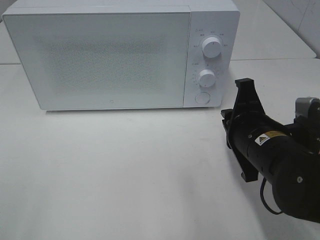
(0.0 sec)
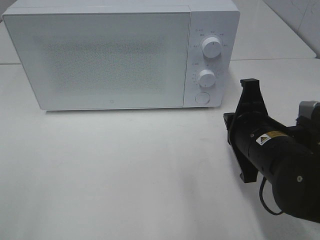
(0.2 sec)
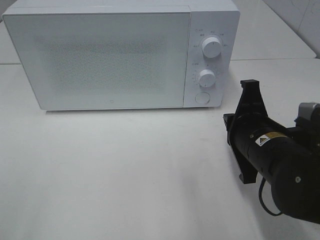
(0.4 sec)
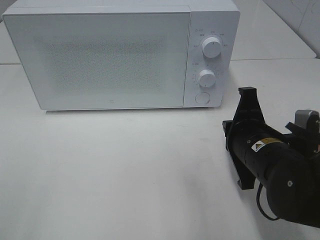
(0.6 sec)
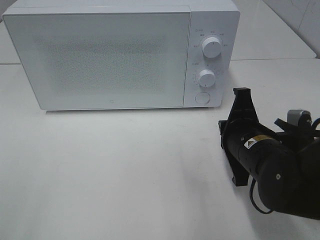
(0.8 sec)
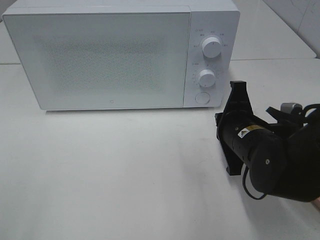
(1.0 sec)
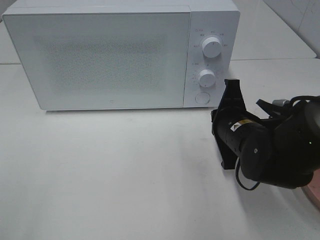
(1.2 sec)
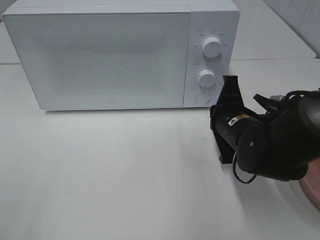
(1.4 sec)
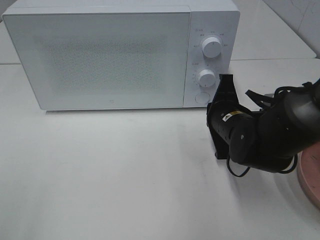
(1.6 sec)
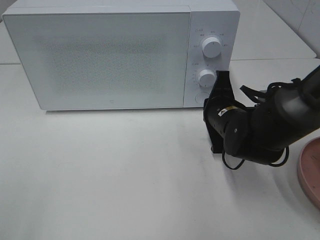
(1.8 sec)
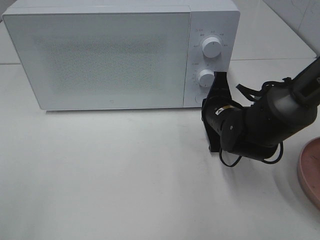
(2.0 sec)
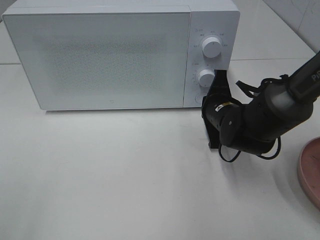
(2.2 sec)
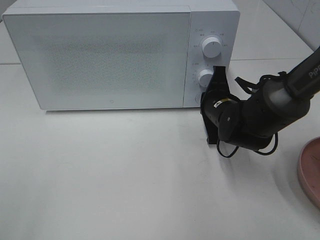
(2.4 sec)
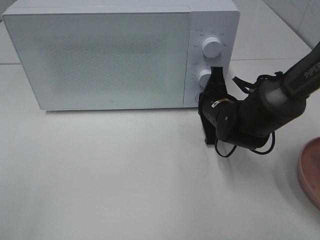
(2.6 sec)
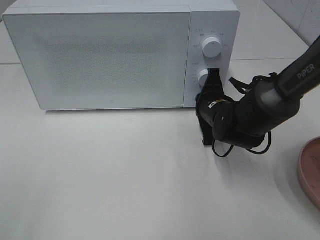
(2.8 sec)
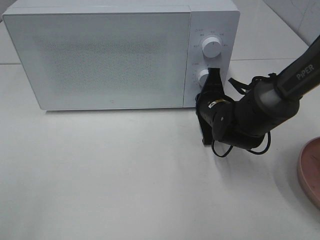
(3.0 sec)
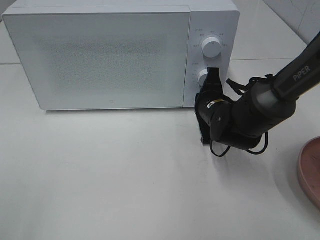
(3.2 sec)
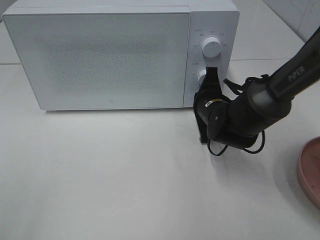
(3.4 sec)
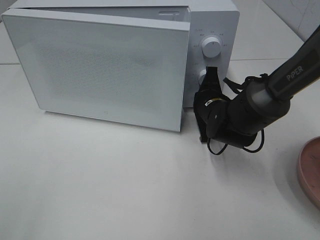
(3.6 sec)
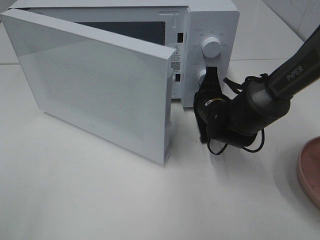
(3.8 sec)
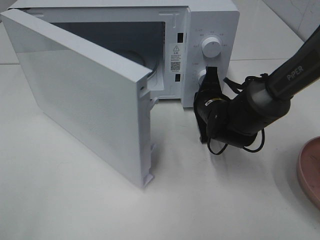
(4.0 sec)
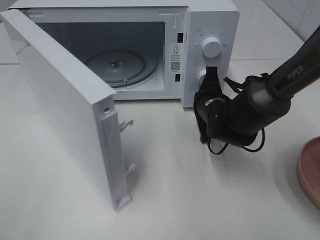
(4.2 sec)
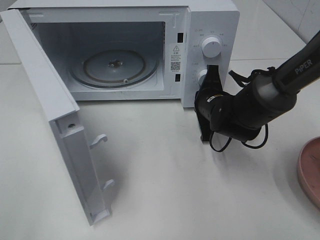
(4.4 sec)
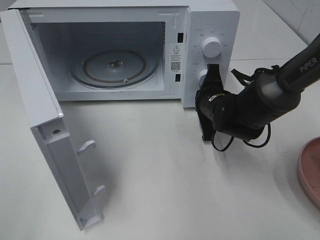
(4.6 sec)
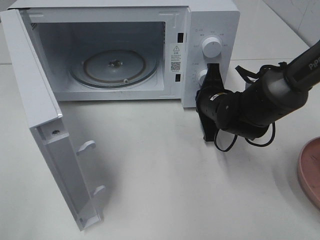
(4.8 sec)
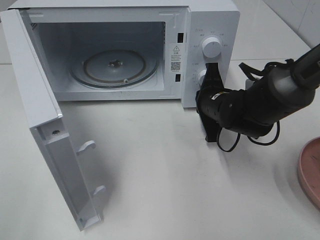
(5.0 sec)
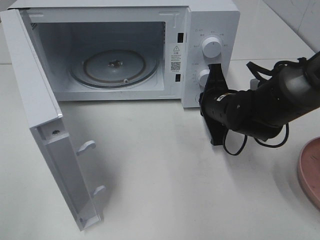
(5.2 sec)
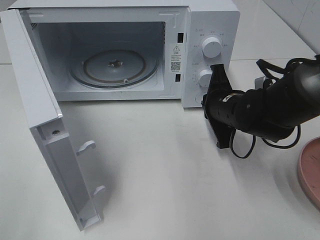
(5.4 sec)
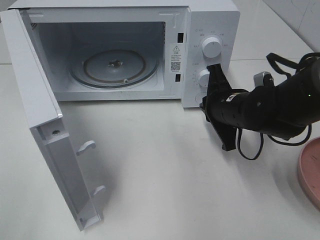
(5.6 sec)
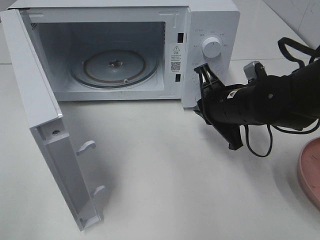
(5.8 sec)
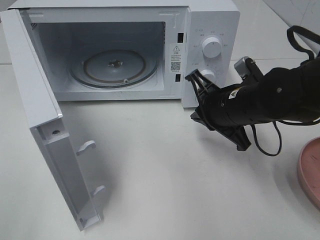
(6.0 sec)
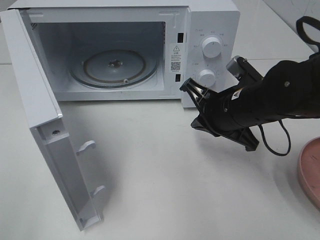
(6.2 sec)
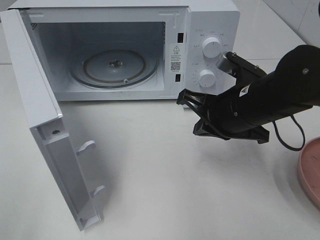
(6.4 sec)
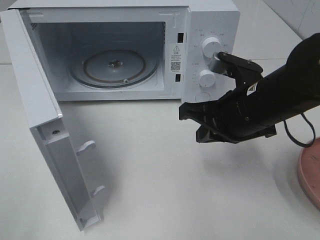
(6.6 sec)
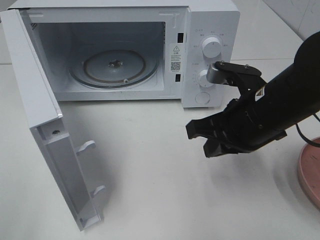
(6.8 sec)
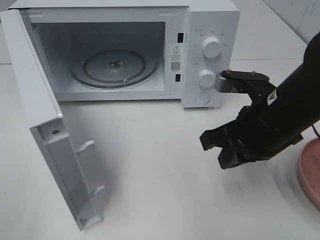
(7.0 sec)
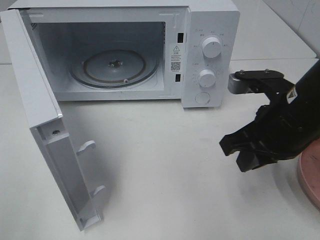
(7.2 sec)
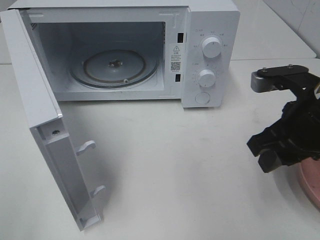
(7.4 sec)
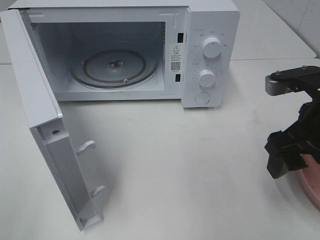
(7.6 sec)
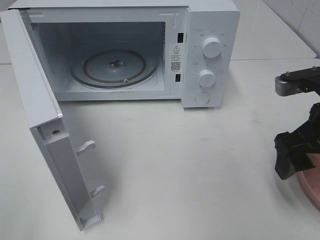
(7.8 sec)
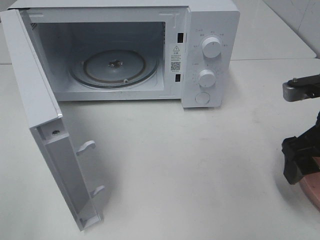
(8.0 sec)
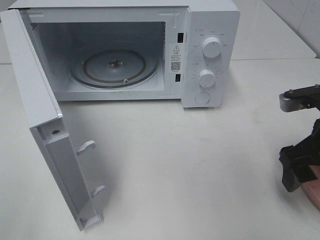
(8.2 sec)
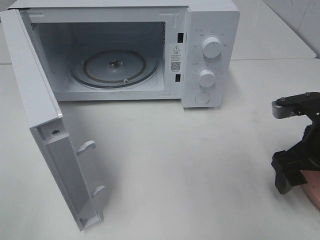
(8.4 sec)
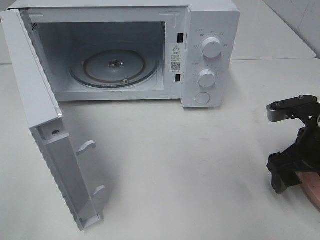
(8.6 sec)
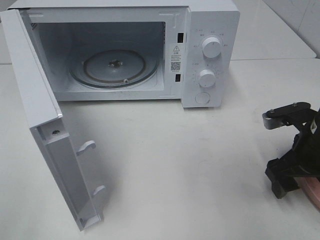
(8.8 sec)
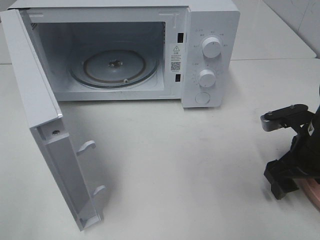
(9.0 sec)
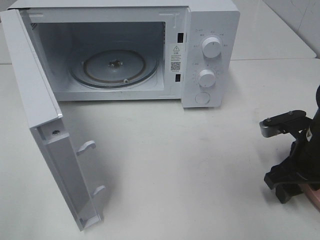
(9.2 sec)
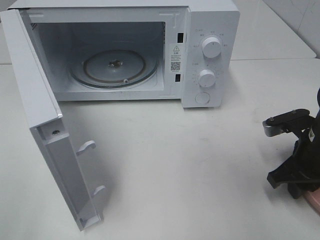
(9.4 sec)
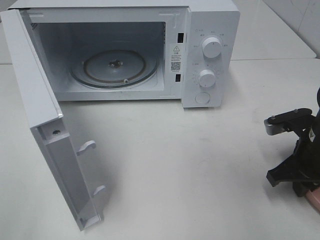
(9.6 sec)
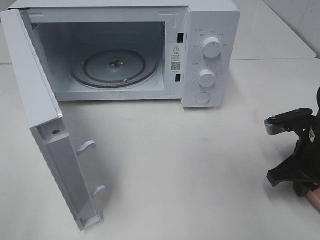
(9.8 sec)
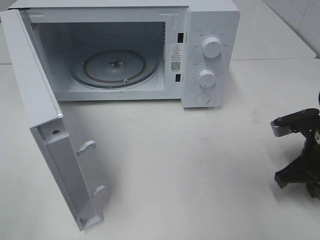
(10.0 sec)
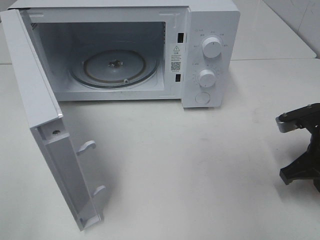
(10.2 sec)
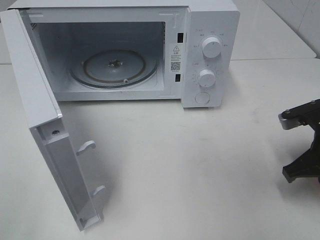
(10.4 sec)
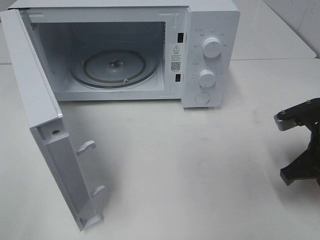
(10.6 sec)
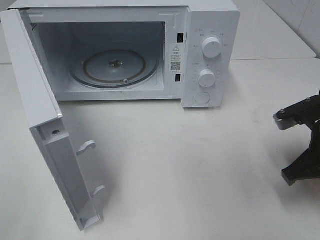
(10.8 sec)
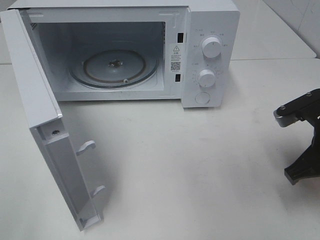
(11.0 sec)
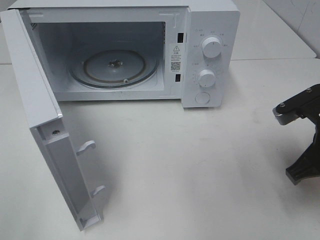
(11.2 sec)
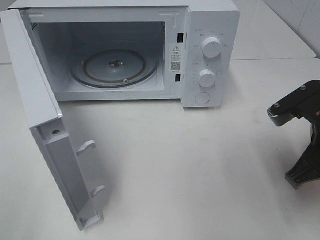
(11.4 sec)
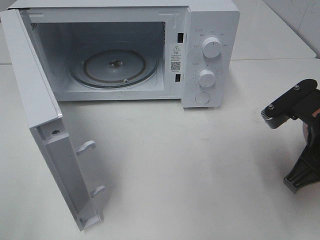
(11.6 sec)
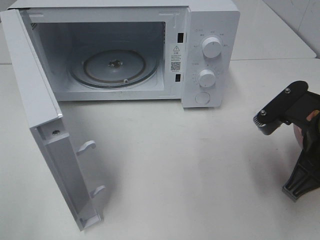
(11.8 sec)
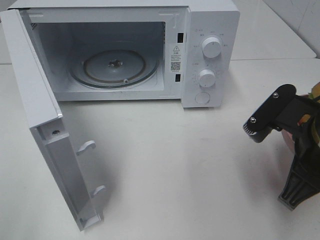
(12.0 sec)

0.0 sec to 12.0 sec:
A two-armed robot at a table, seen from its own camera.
Task of the whole recording: Heat the burger.
Step, 0.0 sec to 5.2 sec: Right hand: press the switch.
Step, 5.4 sec to 10.2 sec: Right hand: grab the plate with the hamburger.
0.0 sec to 1.6 sec: The right gripper goes some 10 cm forward.
1.6 sec to 3.0 sec: The right gripper travels forward by some 5 cm.
4.4 sec to 6.0 sec: The right gripper goes approximately 10 cm backward and upward.
6.0 sec to 7.6 sec: The right gripper is displaced to the right, backward and upward by approximately 15 cm, and opens.
7.6 sec to 9.0 sec: The right gripper travels downward by approximately 10 cm.
9.0 sec to 10.4 sec: The right gripper closes.
10.4 sec to 12.0 sec: The right gripper shifts some 10 cm to the left, backward and upward.

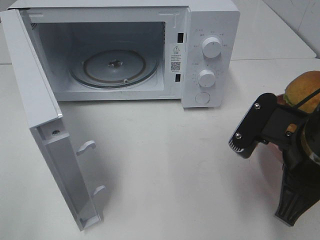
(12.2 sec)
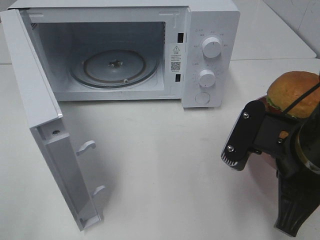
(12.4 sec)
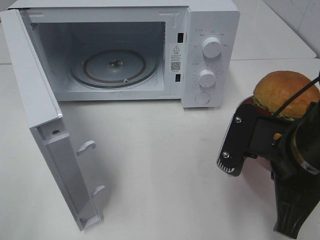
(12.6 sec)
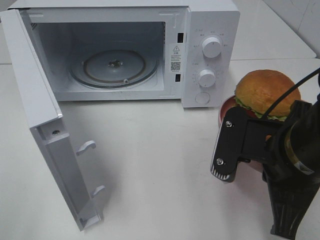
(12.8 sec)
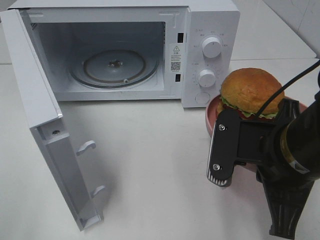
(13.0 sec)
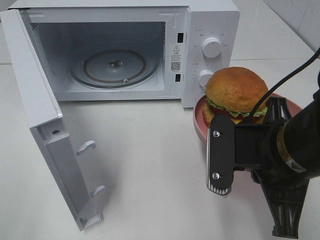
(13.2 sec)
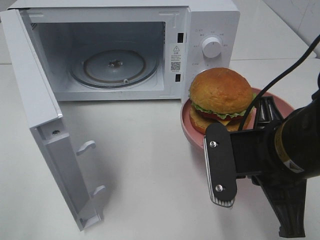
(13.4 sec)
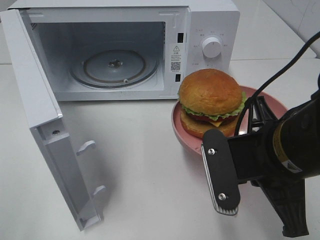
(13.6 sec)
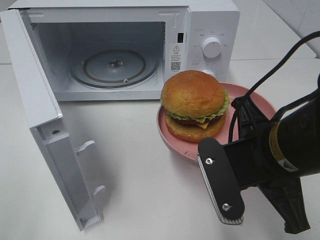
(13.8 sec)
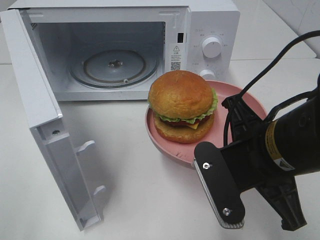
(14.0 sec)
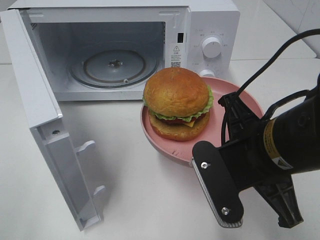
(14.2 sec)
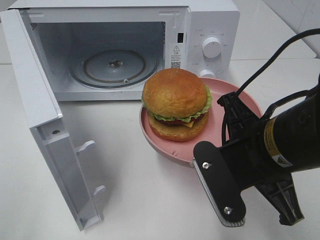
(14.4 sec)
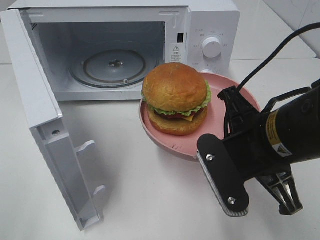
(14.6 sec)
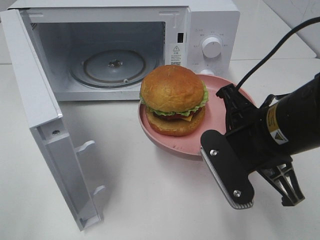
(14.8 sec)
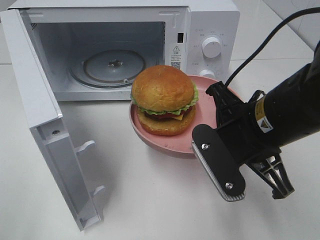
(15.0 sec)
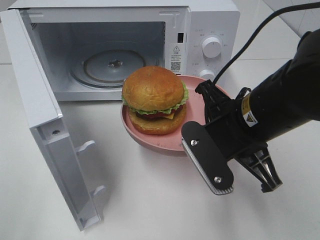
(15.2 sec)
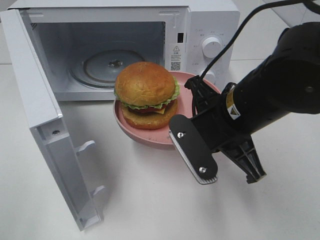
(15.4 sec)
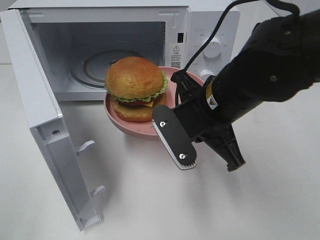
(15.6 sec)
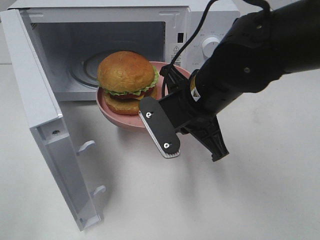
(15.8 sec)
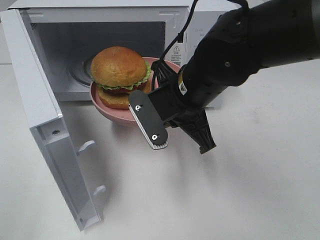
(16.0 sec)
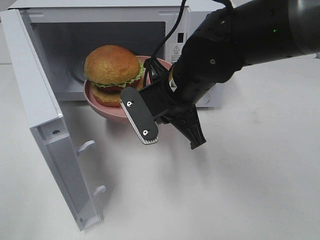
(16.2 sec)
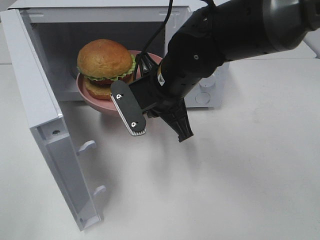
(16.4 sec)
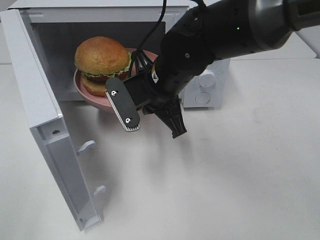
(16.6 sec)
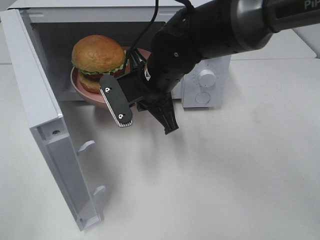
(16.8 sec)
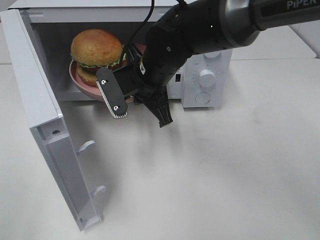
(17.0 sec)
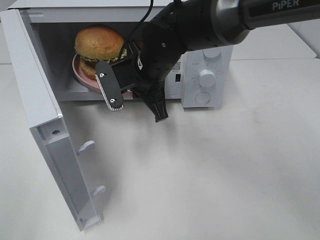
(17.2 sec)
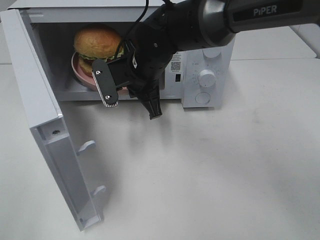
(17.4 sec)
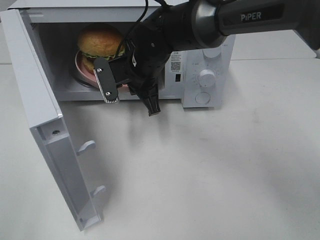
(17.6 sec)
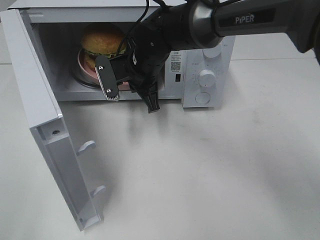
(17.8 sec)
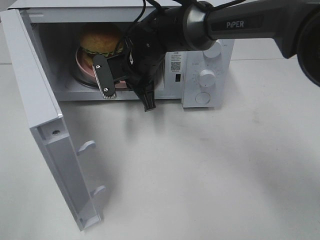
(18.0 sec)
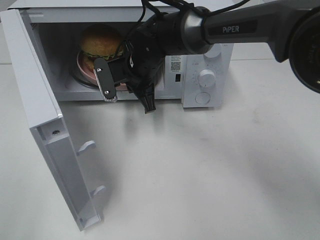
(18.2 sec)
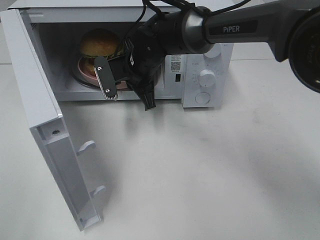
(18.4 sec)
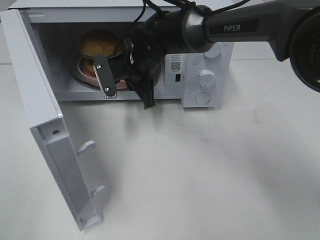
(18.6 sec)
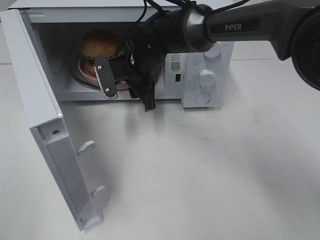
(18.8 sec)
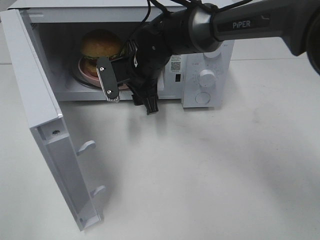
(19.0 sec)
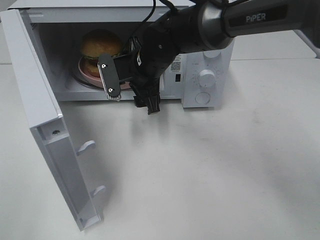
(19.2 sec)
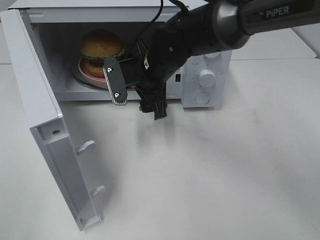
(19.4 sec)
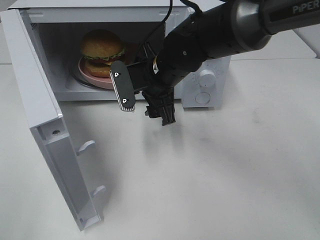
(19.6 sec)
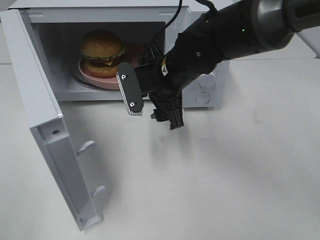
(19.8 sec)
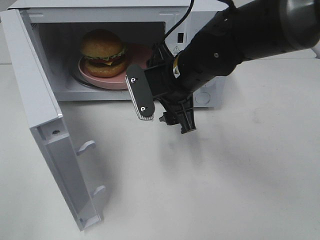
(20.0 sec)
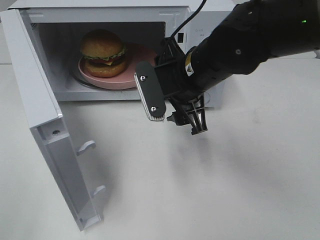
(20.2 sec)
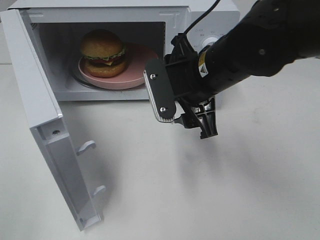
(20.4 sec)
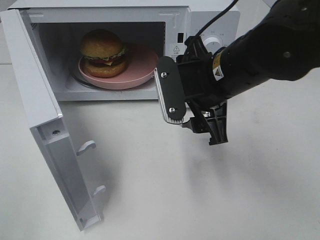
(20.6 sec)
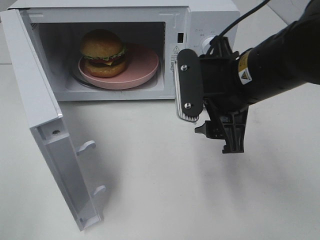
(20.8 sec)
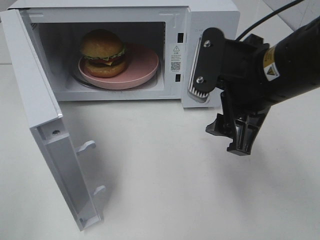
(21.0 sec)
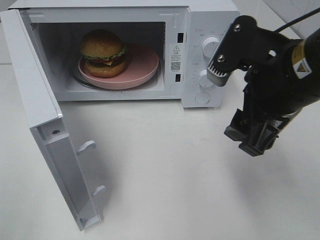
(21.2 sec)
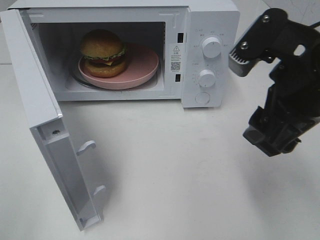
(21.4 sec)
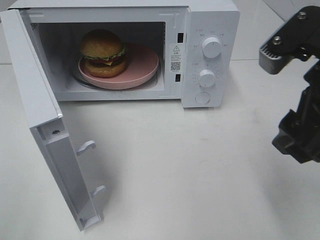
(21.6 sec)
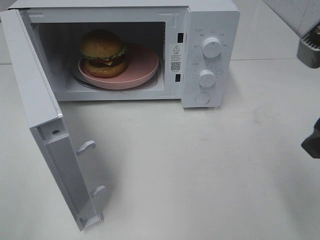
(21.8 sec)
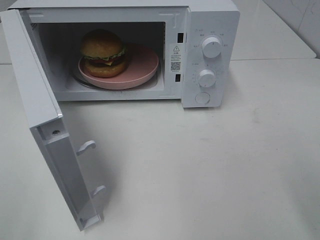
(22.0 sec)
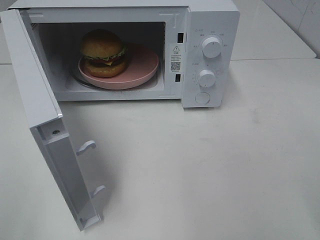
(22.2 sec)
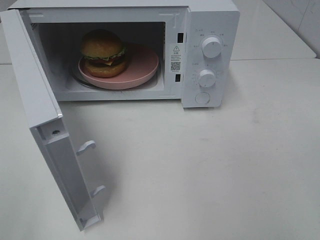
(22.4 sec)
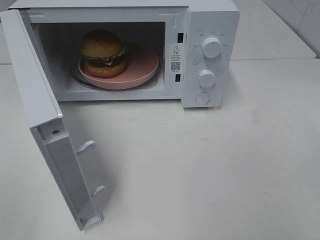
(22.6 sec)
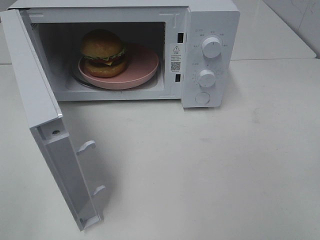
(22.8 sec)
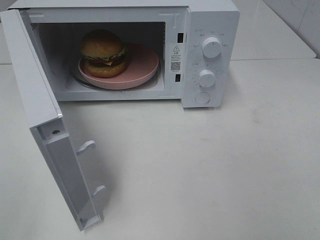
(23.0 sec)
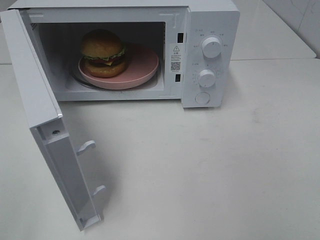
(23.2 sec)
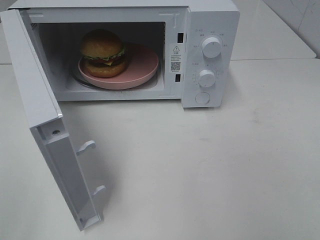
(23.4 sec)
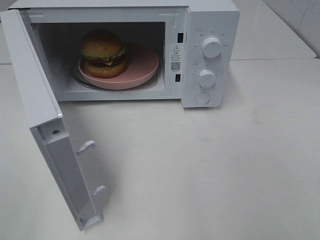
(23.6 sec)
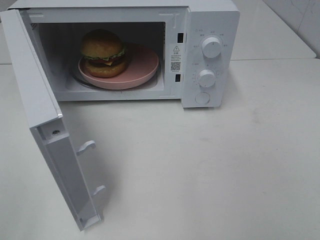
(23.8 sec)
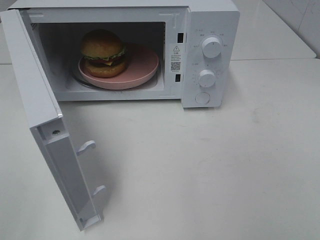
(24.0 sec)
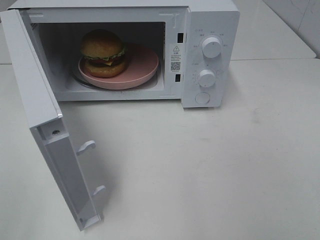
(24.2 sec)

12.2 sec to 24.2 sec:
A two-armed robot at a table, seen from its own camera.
Task of the whole recording: Heat the burger.
Step, 12.2 sec to 18.8 sec: Right hand: place the plate in the microwave.
13.8 sec to 15.2 sec: The right gripper is displaced forward by roughly 5 cm.
15.2 sec to 16.6 sec: The right gripper travels forward and to the left by roughly 15 cm.
16.6 sec to 18.2 sec: The right gripper travels forward by approximately 10 cm.
18.2 sec to 19.8 sec: The right gripper moves backward and to the right, some 10 cm, and opens up.
19.8 sec to 21.2 sec: The right gripper moves backward, to the right and upward, approximately 20 cm.
21.2 sec to 22.6 sec: The right gripper shifts approximately 15 cm backward and to the right.
